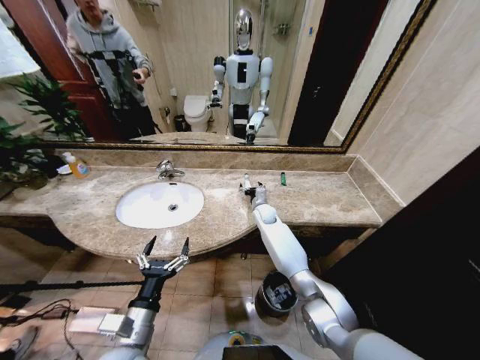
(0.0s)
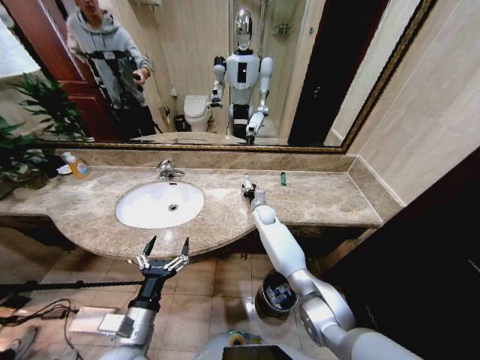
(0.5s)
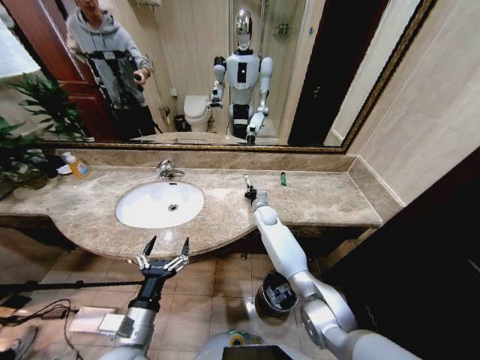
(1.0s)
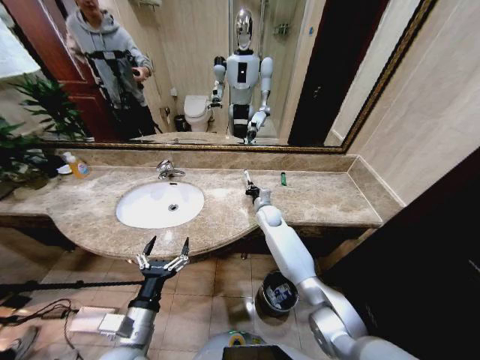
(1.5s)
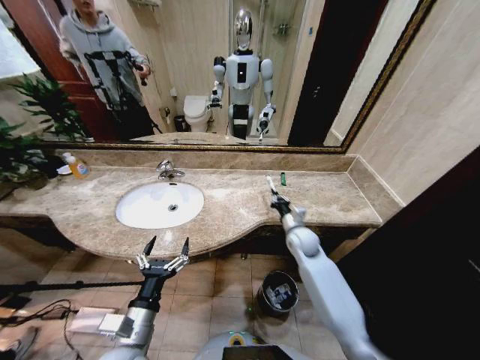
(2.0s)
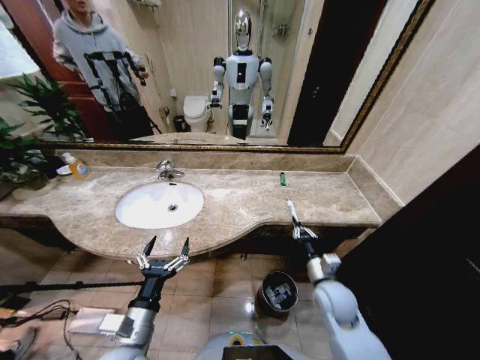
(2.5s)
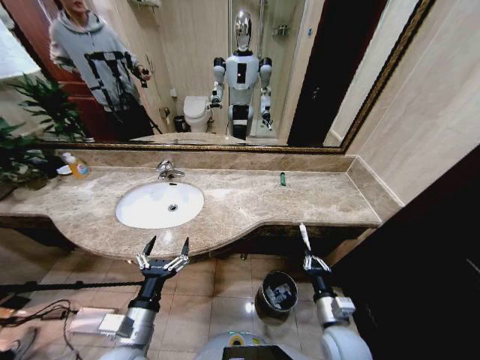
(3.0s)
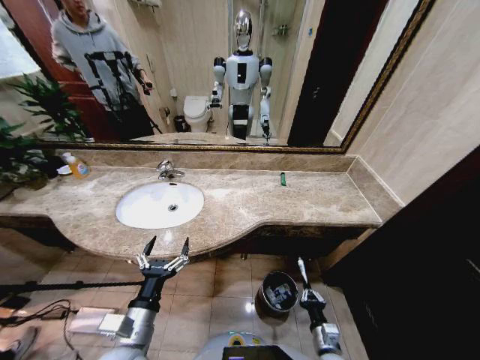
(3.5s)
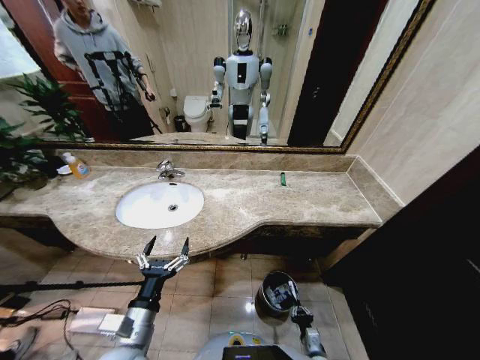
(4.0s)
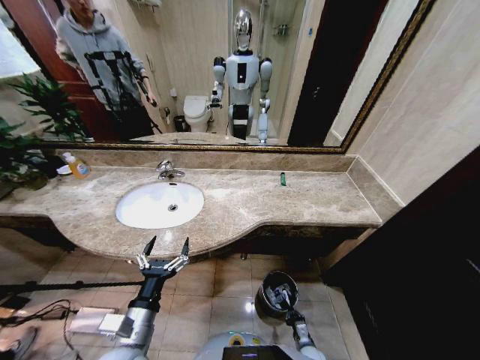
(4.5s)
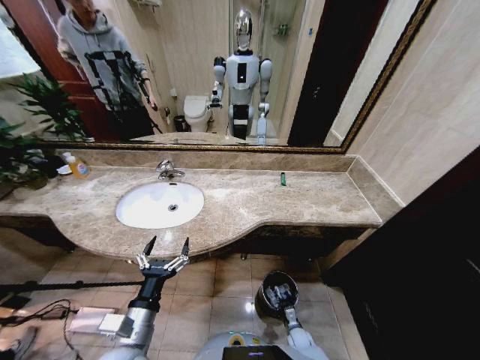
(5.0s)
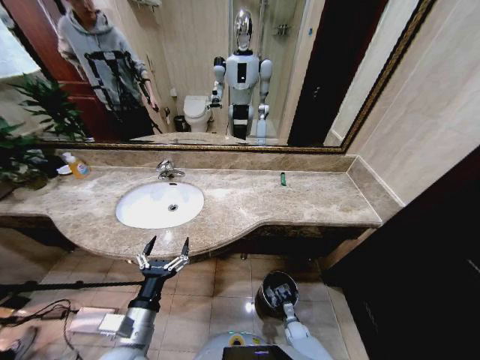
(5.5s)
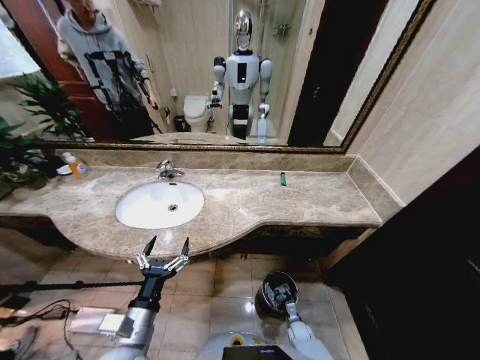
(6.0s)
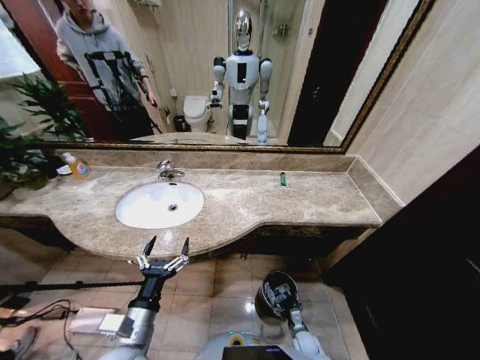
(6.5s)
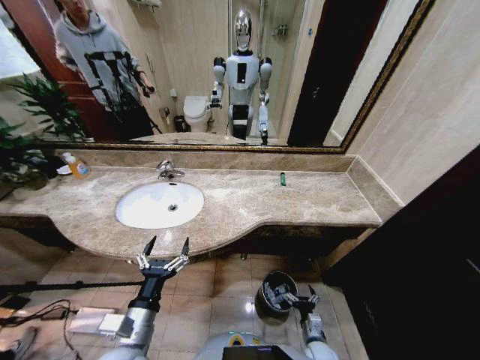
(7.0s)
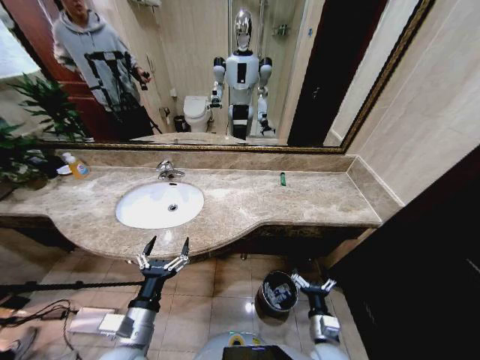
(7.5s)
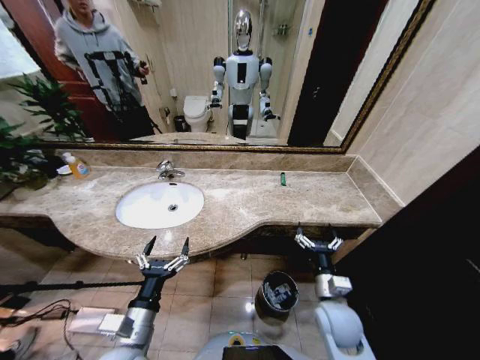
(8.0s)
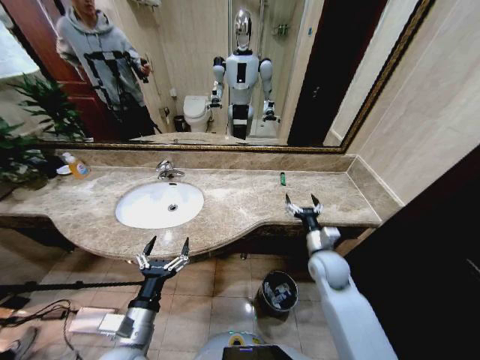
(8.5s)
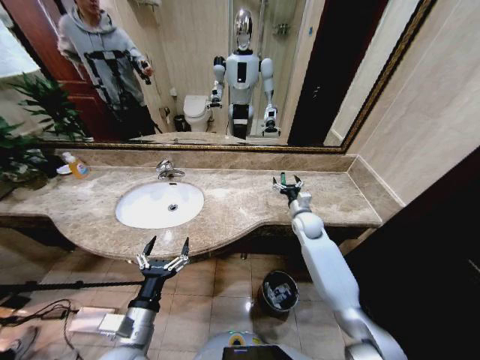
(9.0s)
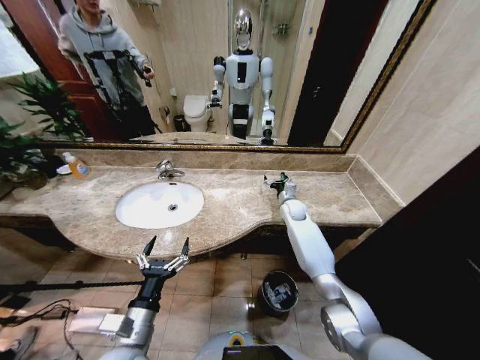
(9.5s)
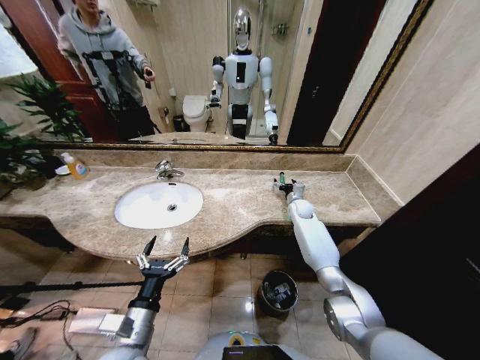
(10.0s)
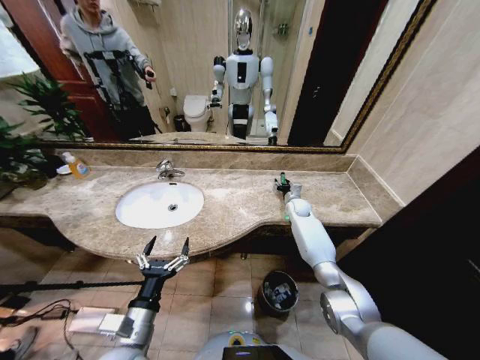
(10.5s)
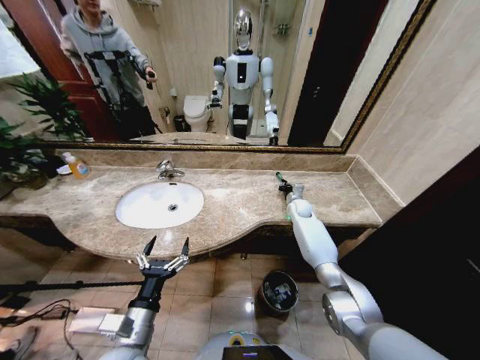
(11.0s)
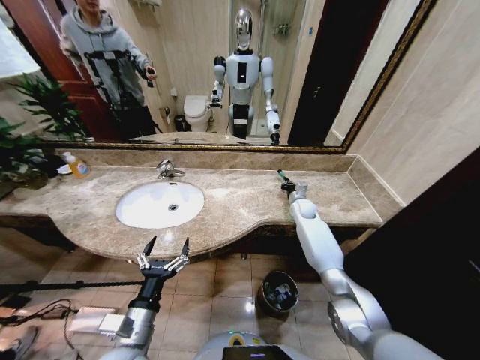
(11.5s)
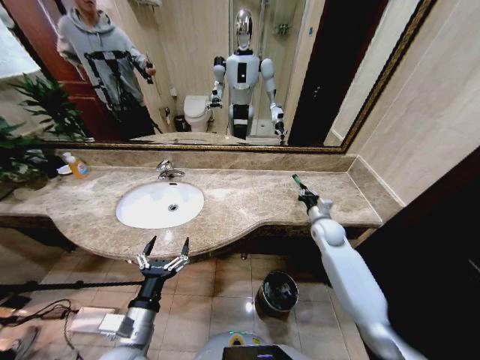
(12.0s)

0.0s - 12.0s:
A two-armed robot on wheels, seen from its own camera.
Task of the whole recording: Pick up the trash from the sink and place it in the trash bin.
0.0s - 2.0s: The right gripper shifts about 15 cm backward and to the right, and closes its fingers.
2.0s - 4.0s: The right gripper is displaced backward and downward by some 40 cm.
4.0s - 6.0s: The right gripper goes some 15 cm forward and downward, and opens up.
6.0s - 8.0s: The right gripper is displaced upward by some 35 cm, and opens up.
8.0s - 10.0s: The right gripper shifts some 35 cm forward.
10.0s - 12.0s: The right gripper is displaced backward by about 15 cm, and closes up.

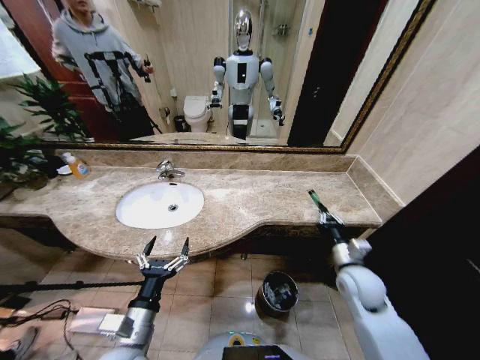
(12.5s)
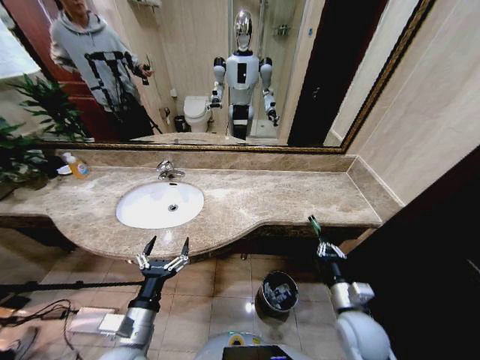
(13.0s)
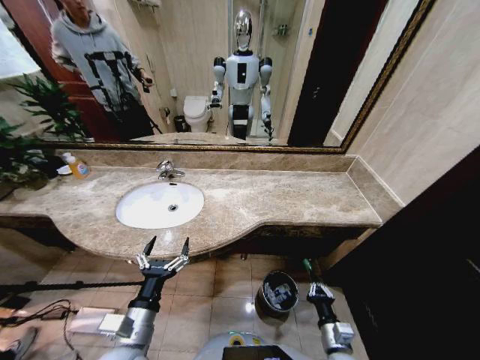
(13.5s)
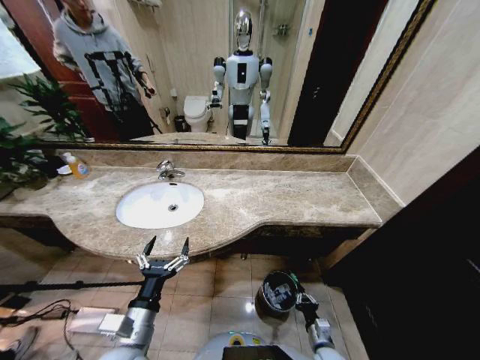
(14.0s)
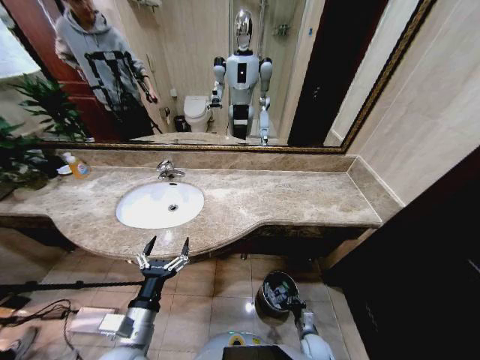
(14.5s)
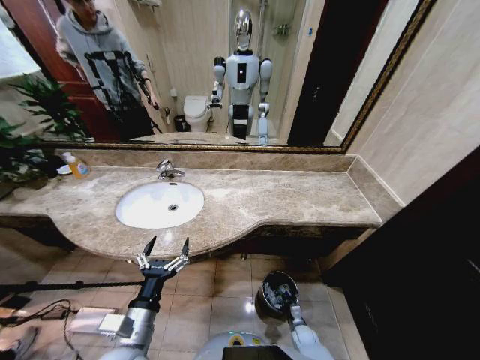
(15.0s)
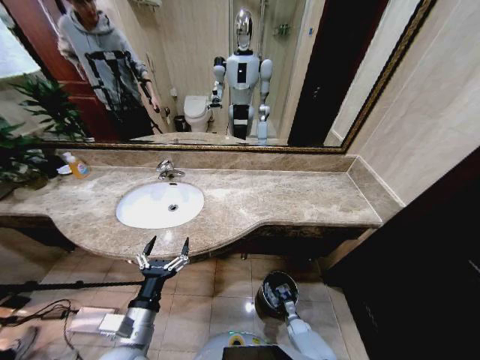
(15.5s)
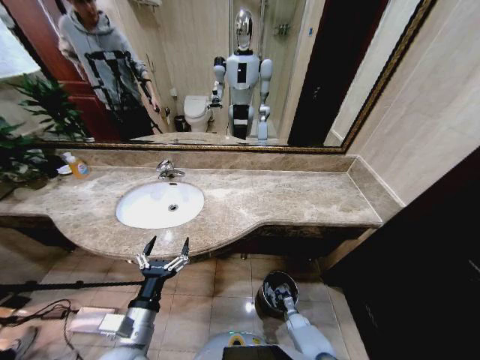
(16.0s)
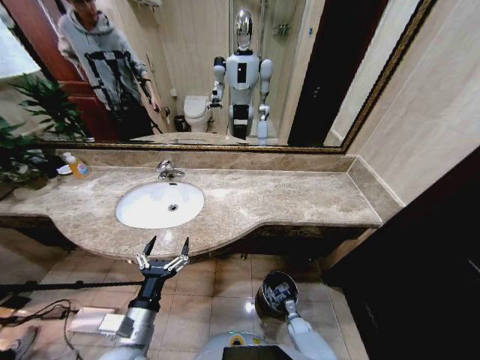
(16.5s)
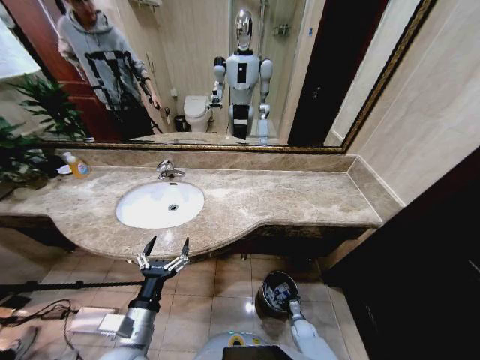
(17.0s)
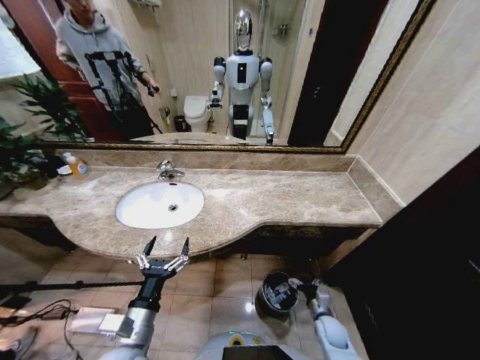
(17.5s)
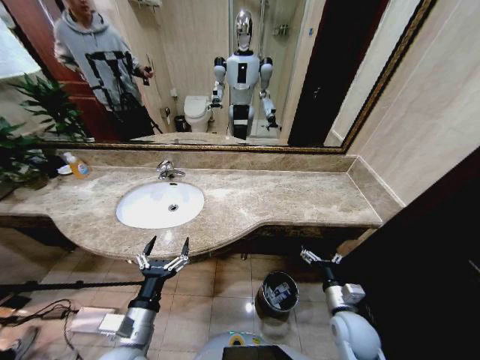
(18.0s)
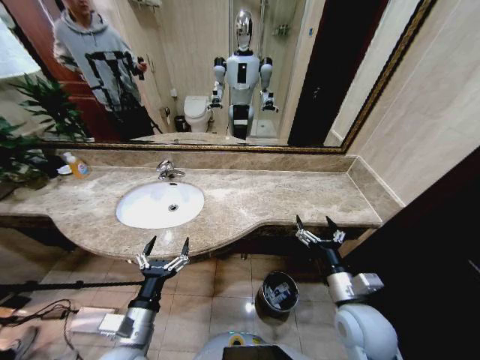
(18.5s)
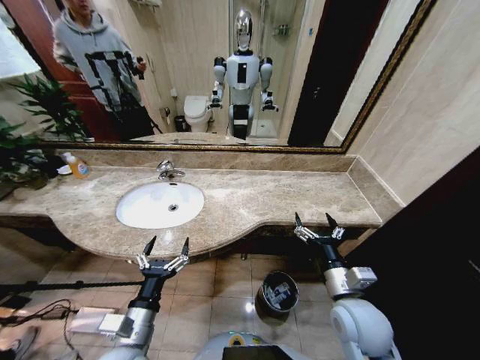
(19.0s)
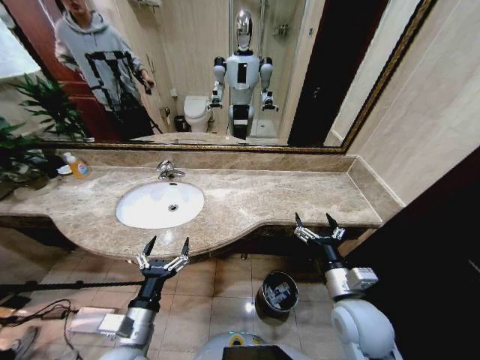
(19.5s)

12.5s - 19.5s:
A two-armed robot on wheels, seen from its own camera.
Task of the whole recording: Pick up the trash from the sink and place it in the trash bin.
12.5s - 14.5s: The right gripper heads downward, covering roughly 30 cm.
14.5s - 16.0s: The right gripper moves downward and forward, about 10 cm.
16.0s - 17.5s: The right gripper moves upward, roughly 15 cm, and opens up.
17.5s - 19.5s: The right gripper moves upward, some 30 cm.

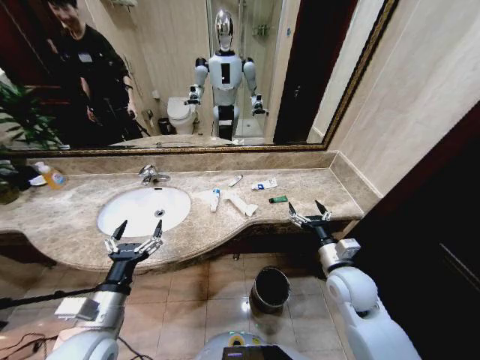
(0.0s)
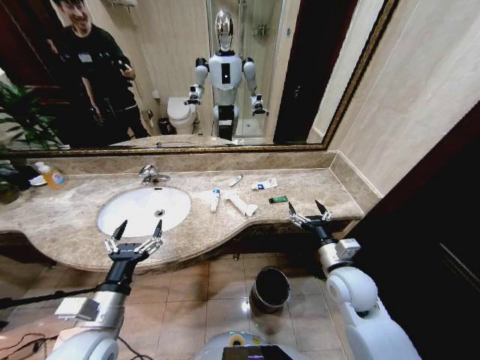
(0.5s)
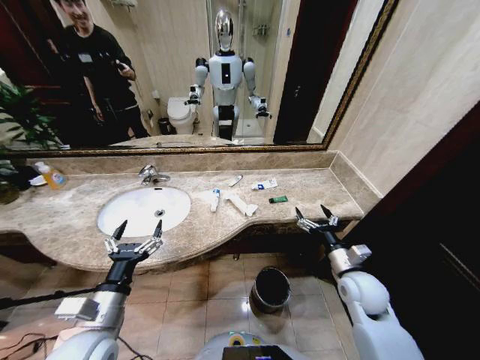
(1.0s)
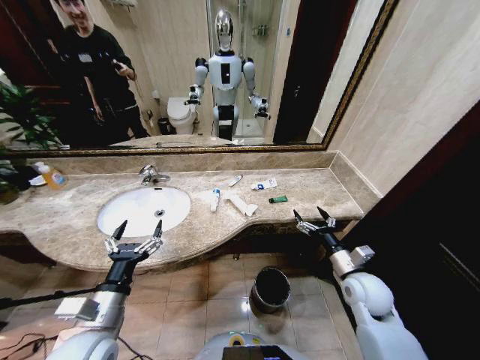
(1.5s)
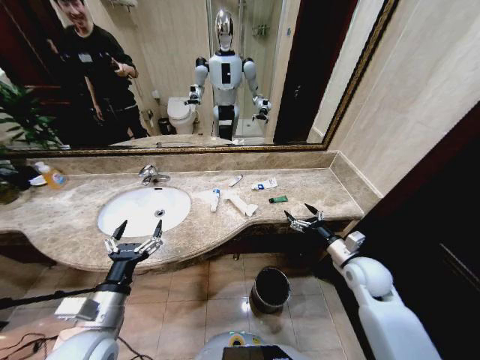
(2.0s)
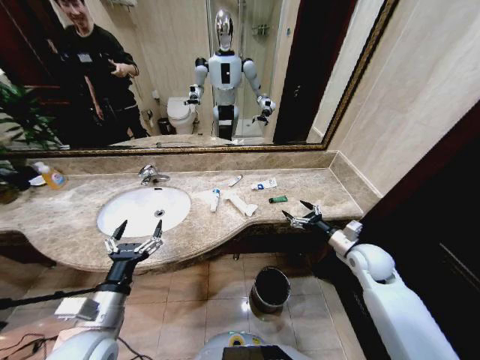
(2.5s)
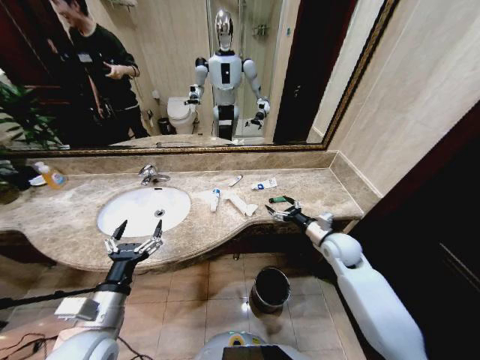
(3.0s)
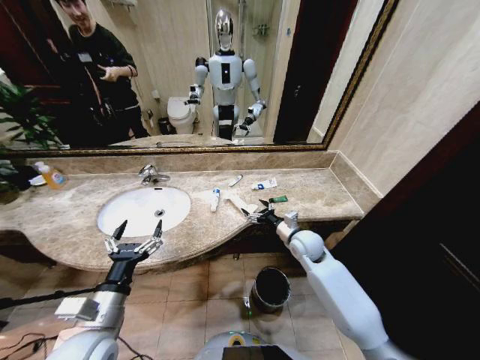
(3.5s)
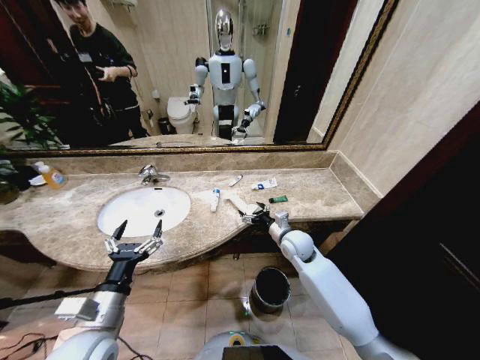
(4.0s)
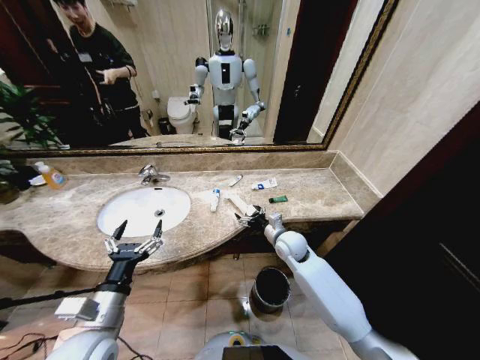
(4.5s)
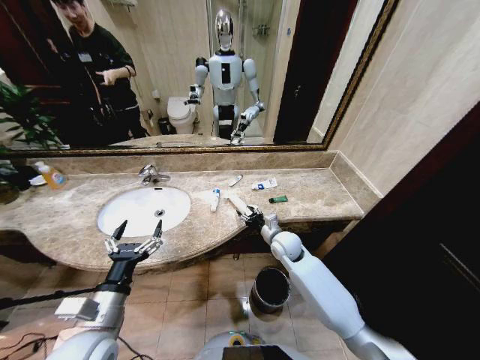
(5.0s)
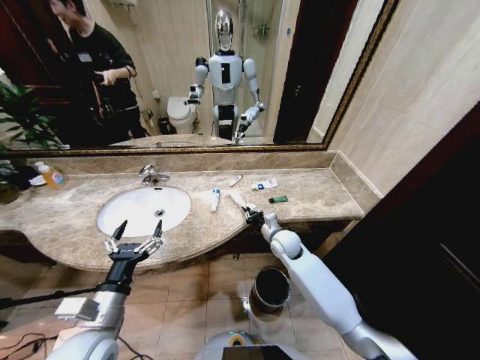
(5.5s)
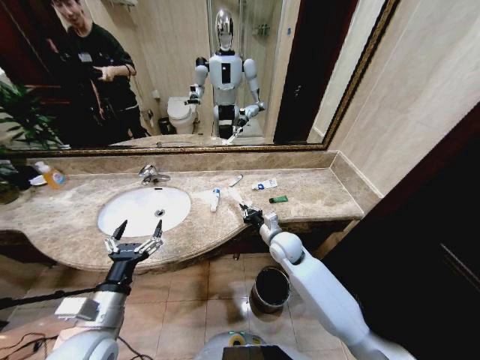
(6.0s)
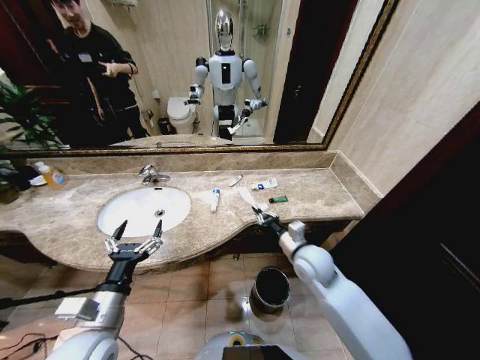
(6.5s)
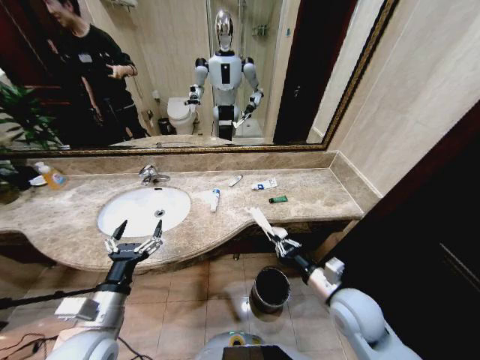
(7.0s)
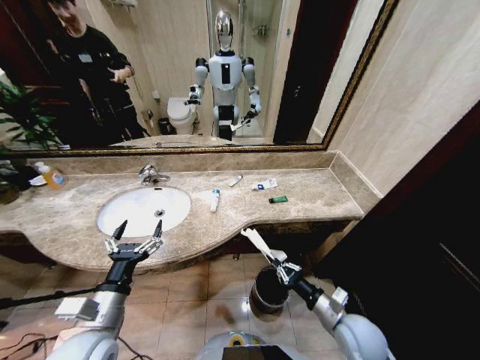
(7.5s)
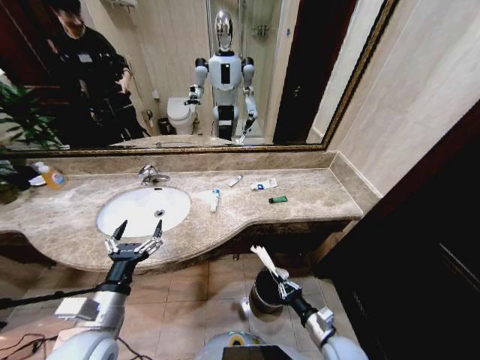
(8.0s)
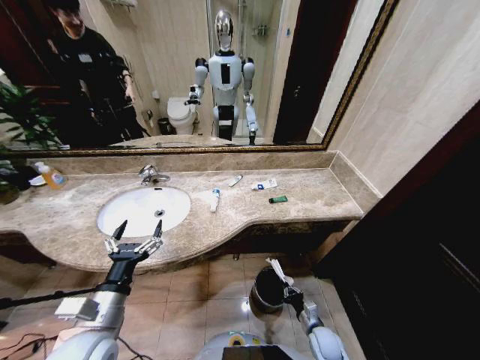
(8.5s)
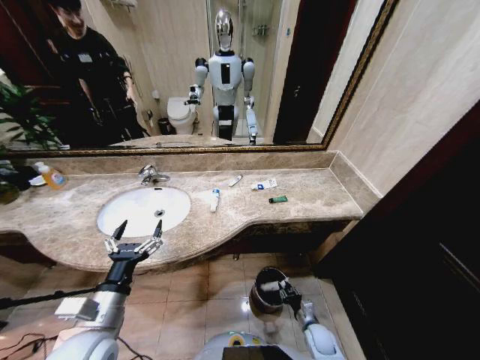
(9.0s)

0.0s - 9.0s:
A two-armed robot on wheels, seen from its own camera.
Task of the whole recording: Pick up the trash from the sink and place it in the trash bin.
2.0s - 4.5s: The right gripper goes some 20 cm to the left and forward.
4.5s - 7.0s: The right gripper moves backward and to the right, some 20 cm, and closes.
7.0s - 9.0s: The right gripper goes approximately 30 cm downward.
